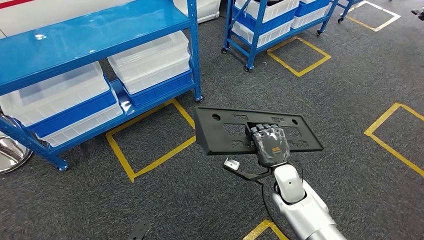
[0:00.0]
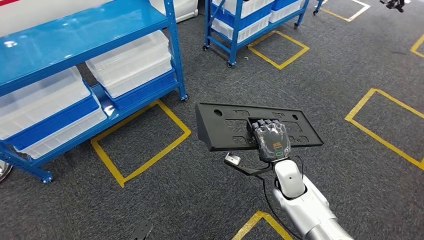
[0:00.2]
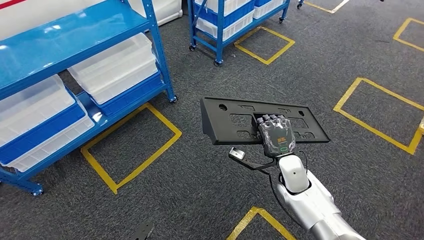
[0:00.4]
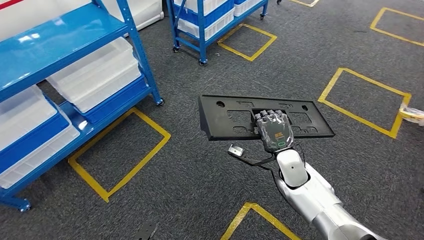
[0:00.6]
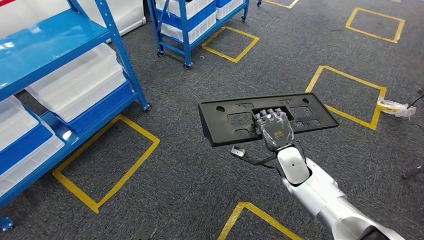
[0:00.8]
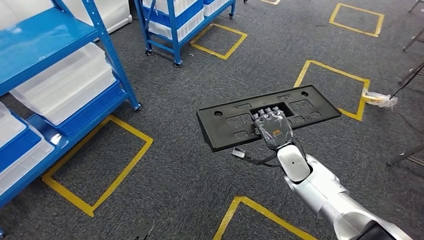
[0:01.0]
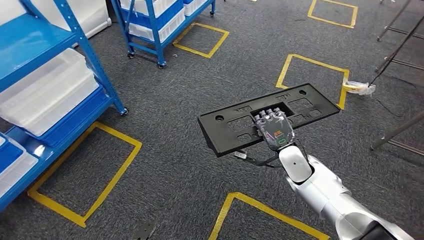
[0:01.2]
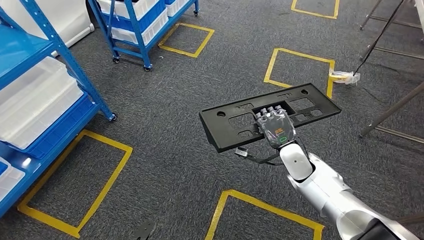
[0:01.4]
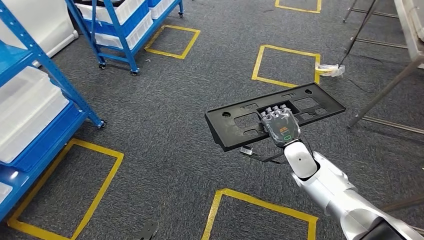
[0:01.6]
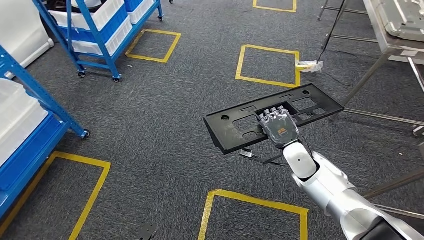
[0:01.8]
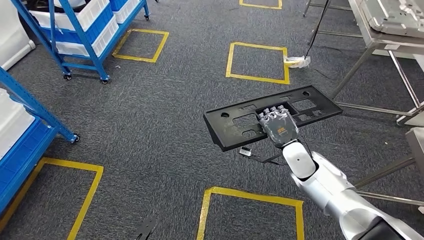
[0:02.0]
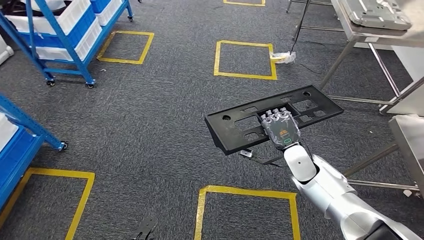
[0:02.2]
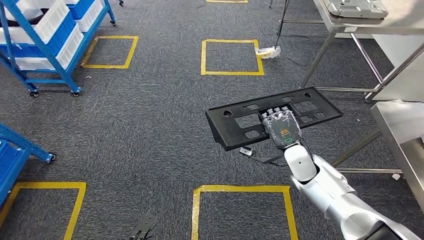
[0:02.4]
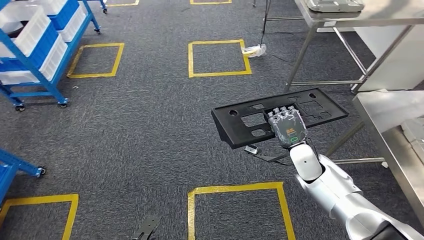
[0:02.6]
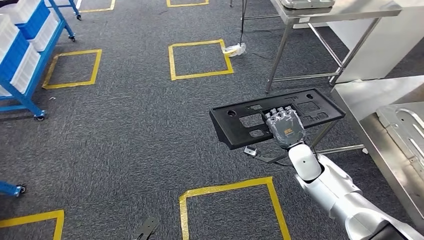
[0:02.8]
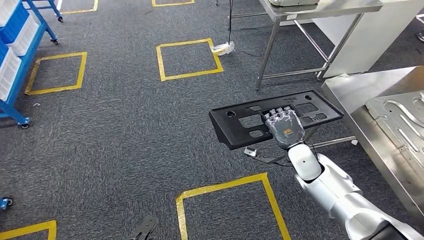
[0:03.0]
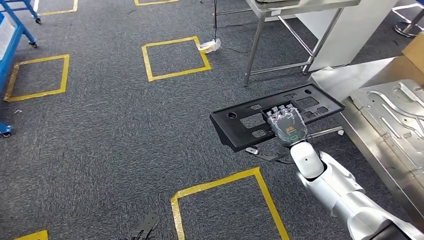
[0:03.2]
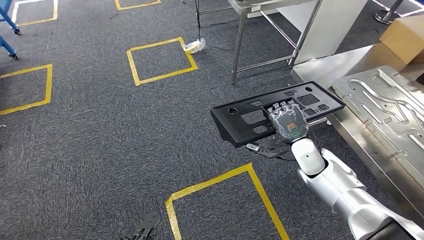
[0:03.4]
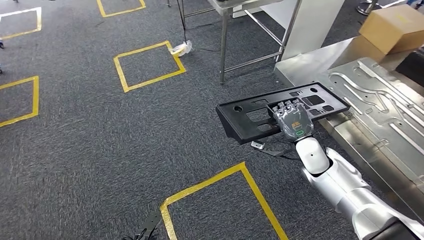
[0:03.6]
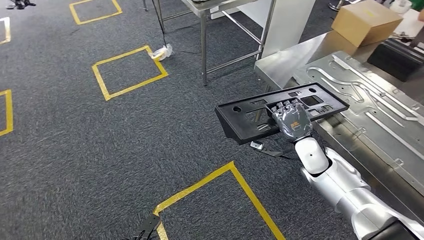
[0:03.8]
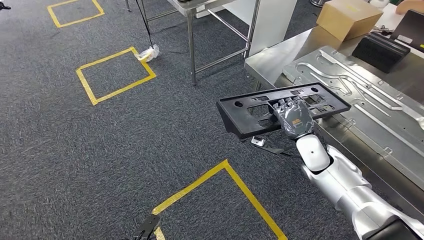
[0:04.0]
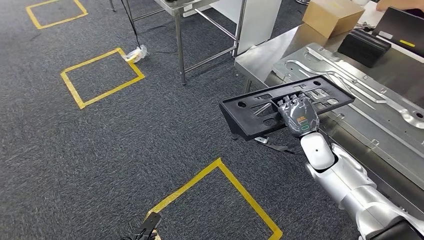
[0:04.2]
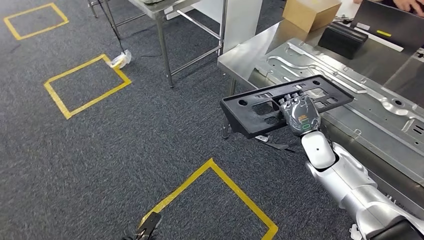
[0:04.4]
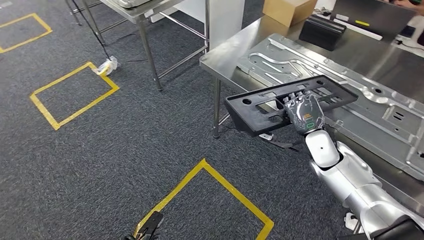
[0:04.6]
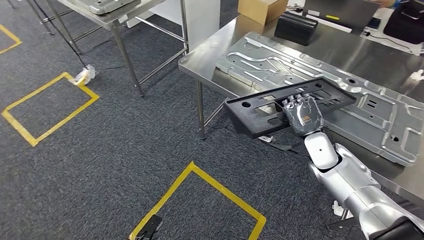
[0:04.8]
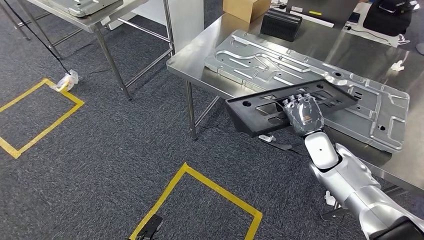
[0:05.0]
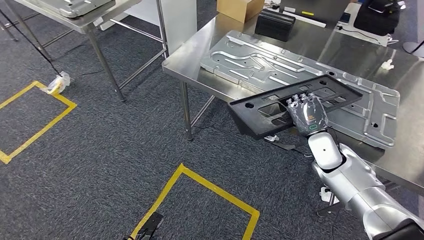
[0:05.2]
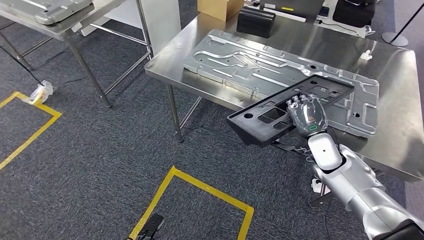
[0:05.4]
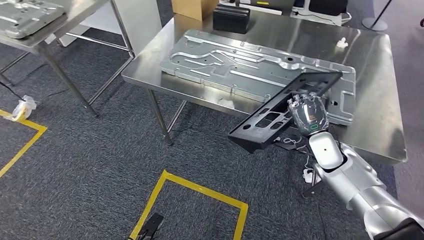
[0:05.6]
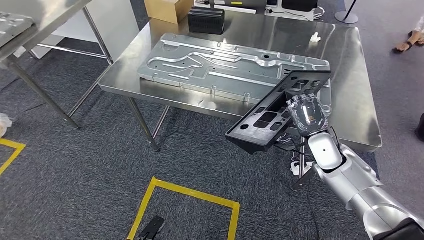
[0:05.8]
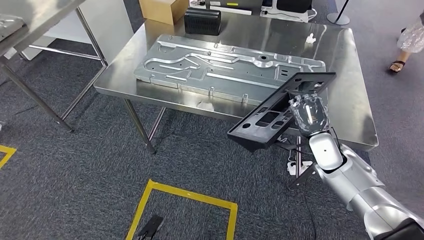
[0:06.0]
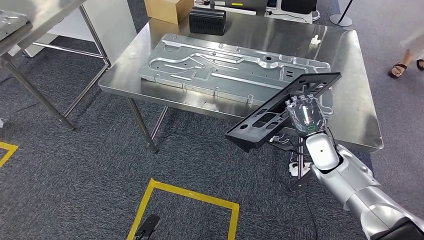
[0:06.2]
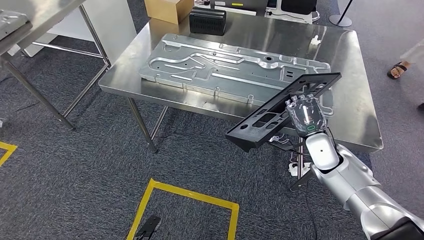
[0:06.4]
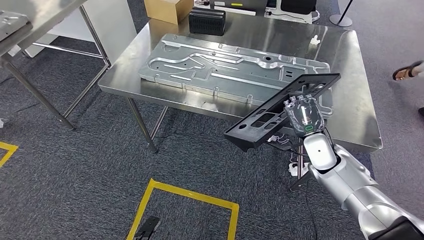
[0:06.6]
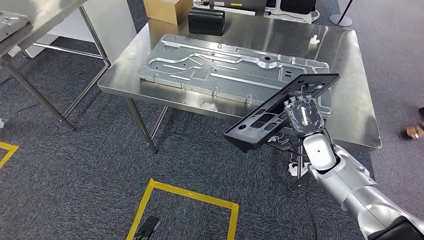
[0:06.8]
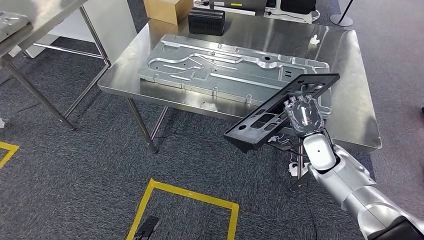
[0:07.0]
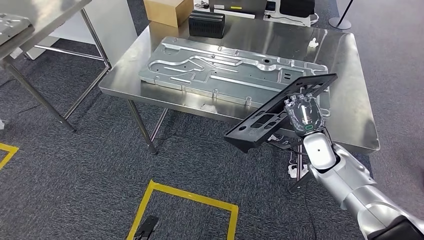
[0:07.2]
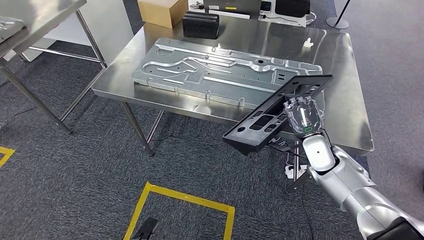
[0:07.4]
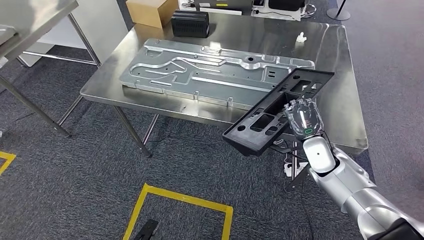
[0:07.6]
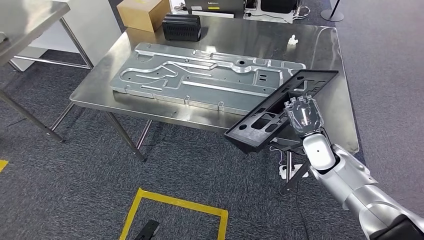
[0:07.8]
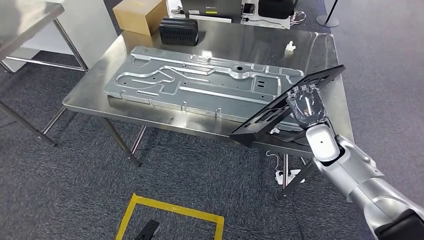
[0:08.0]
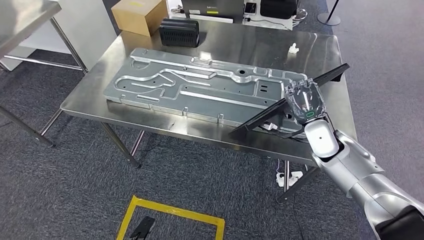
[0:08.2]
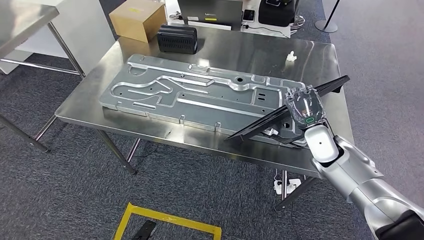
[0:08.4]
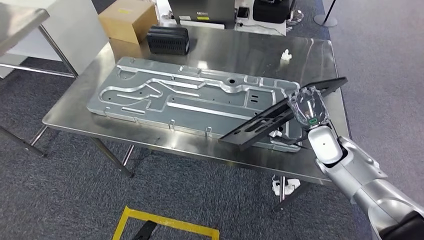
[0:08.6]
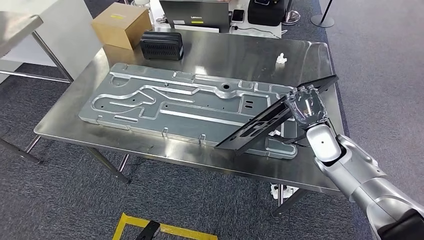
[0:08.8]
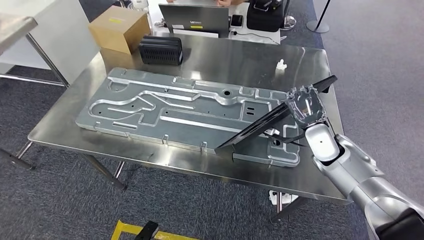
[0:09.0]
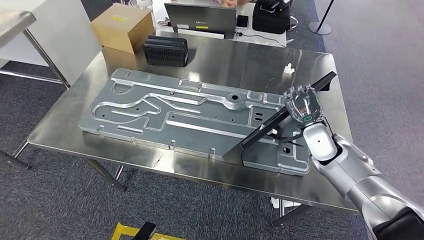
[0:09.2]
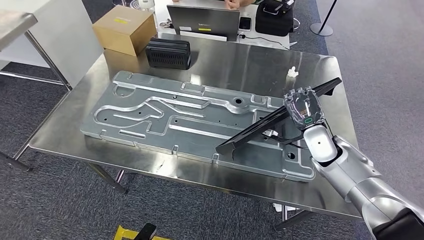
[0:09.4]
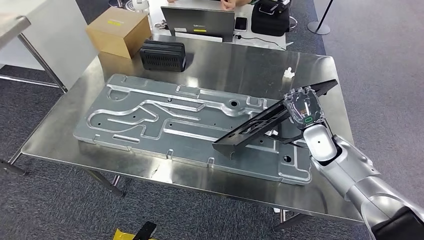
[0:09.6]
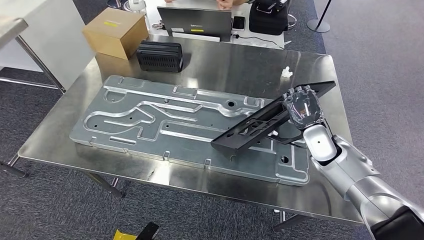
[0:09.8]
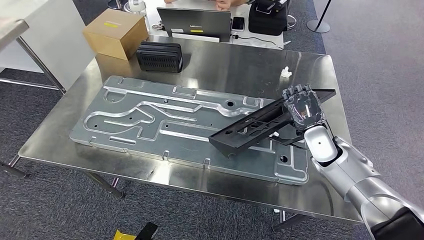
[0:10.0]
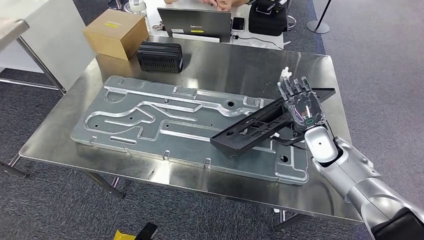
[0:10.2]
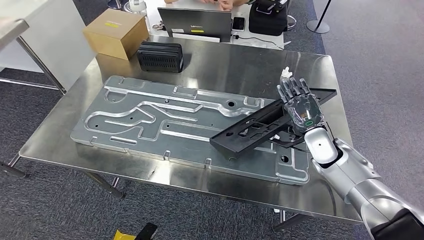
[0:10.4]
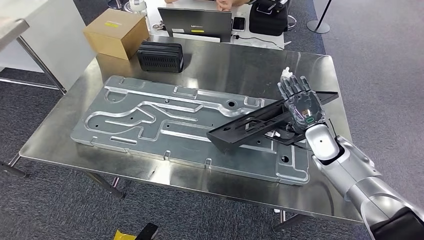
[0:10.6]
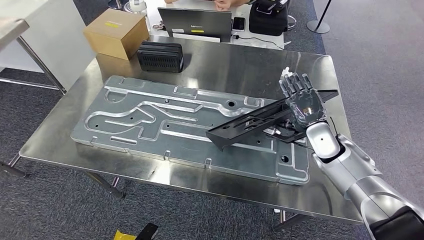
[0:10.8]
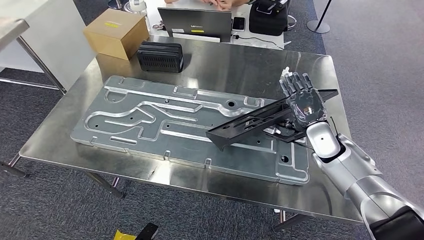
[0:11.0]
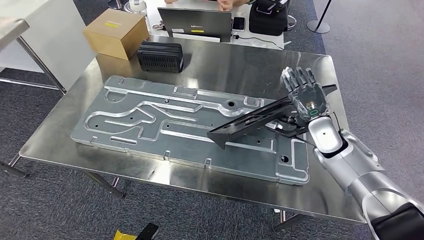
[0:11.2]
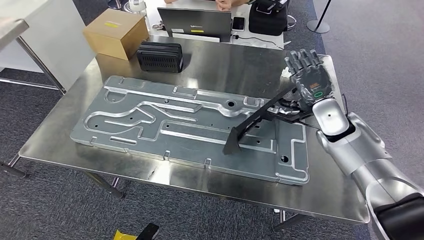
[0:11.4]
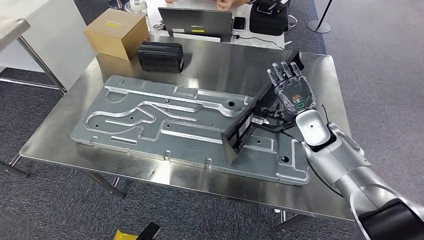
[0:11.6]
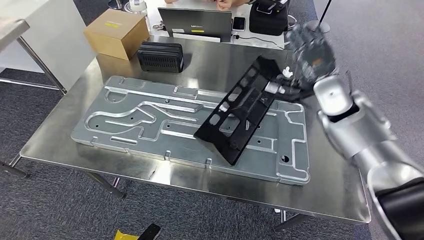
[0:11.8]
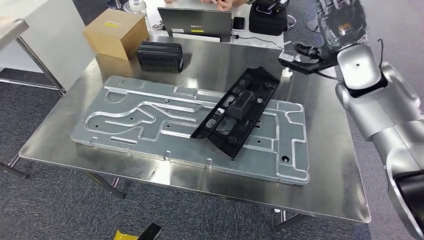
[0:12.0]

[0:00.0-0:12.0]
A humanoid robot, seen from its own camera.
Step, 0:00.0 to 0:05.8: Move the large material to the workbench.

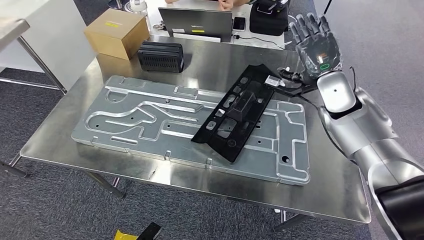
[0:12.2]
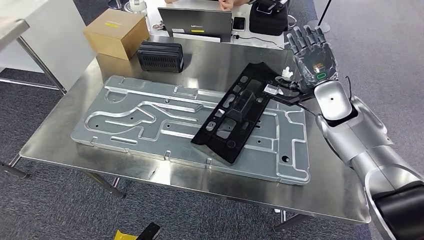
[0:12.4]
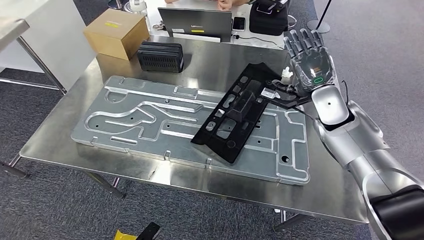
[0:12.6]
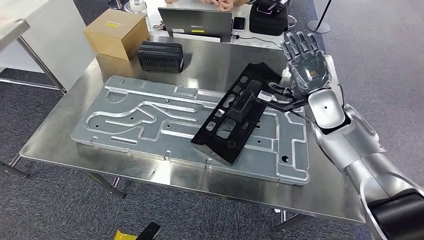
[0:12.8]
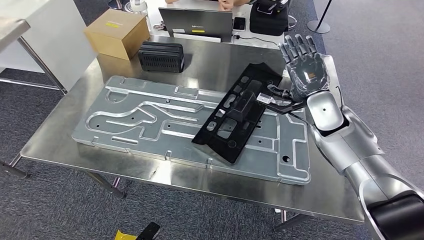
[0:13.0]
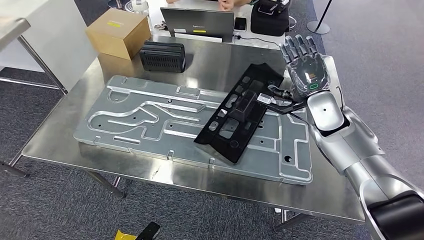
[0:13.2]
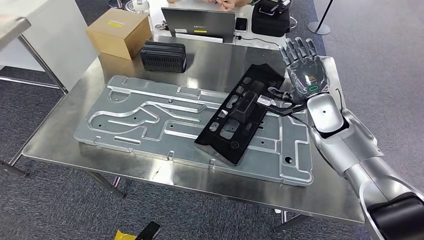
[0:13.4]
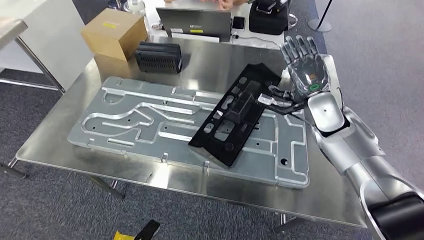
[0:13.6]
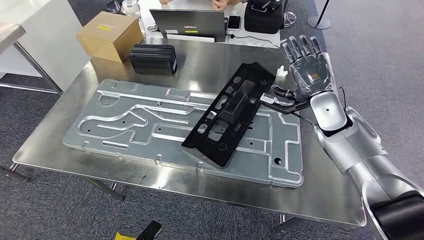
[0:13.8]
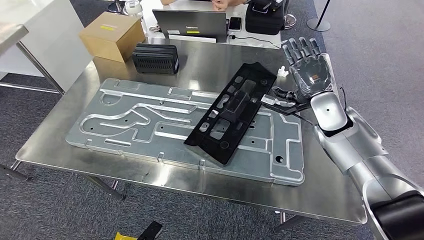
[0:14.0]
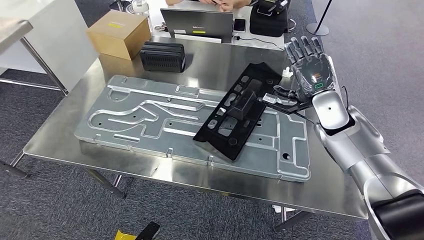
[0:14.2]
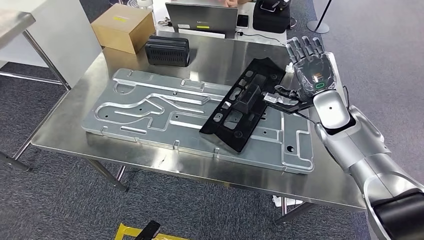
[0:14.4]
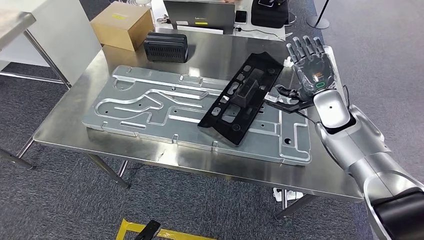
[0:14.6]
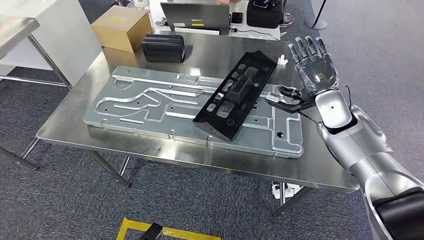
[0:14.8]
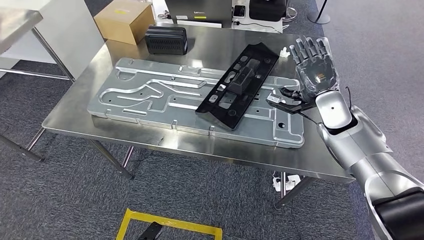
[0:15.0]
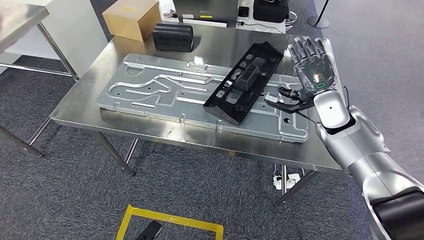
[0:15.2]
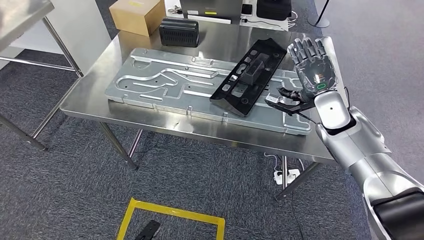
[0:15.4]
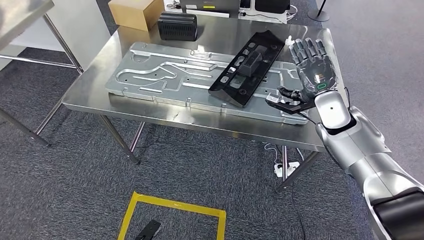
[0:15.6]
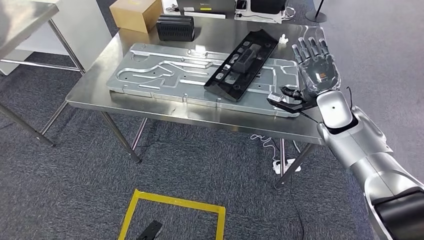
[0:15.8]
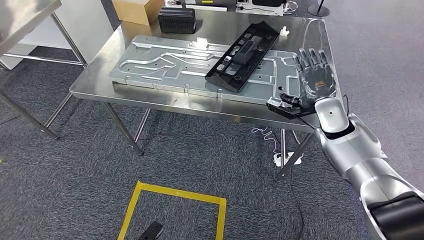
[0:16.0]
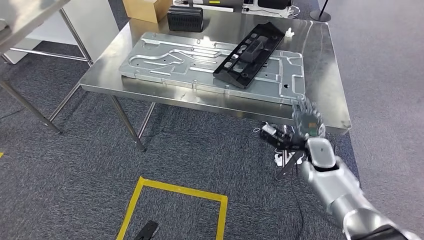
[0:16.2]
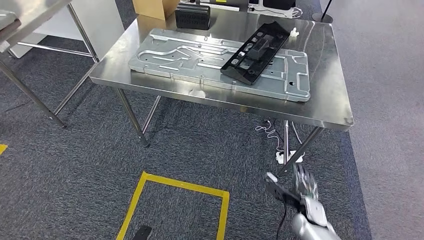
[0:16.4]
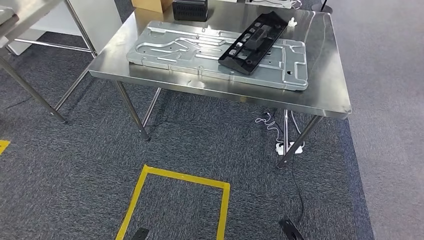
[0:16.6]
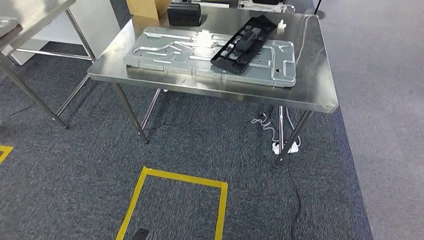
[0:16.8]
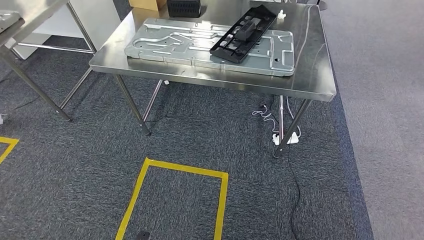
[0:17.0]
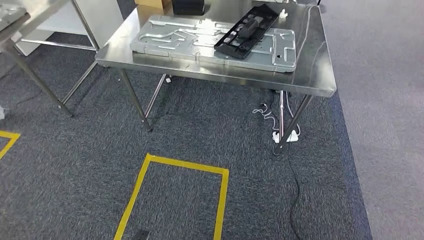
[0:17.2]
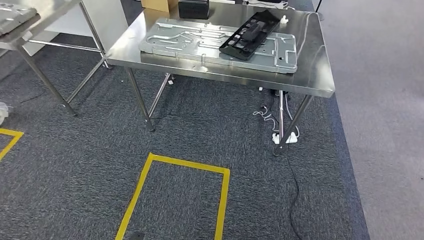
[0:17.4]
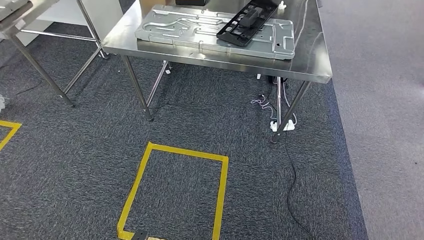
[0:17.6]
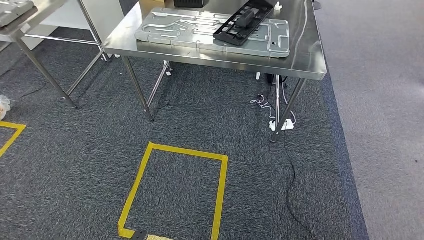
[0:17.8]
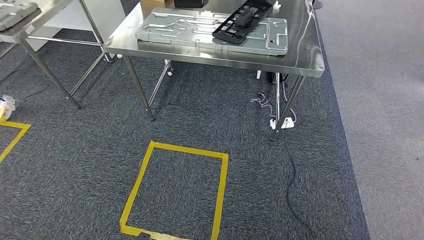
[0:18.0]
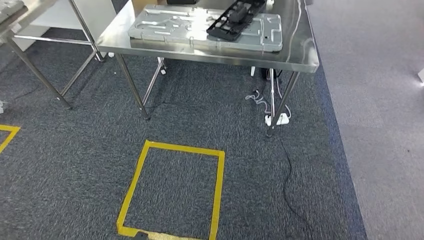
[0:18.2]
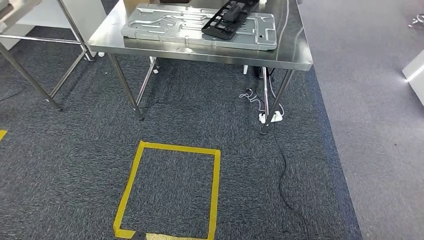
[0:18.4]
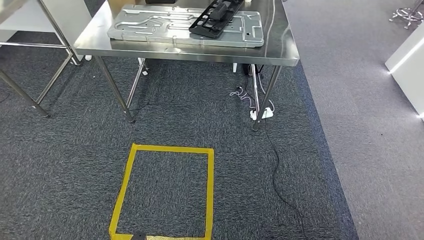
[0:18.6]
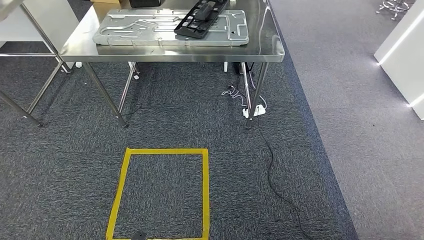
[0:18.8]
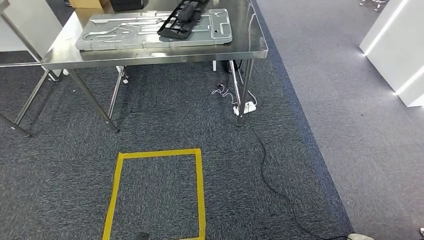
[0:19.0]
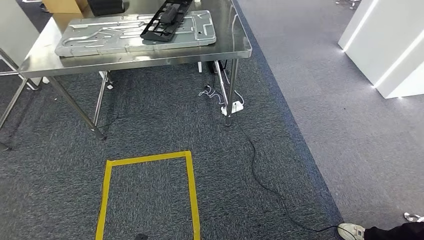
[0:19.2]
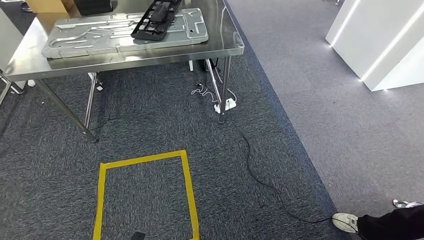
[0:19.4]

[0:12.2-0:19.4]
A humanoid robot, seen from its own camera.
Step, 0:12.2 to 0:15.0: Insert the large material into the corresponding slot on the workbench.
